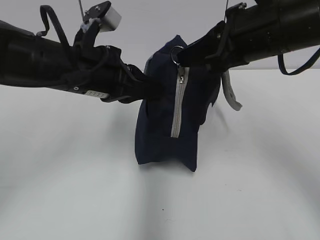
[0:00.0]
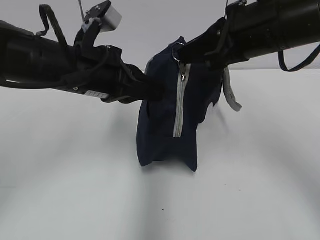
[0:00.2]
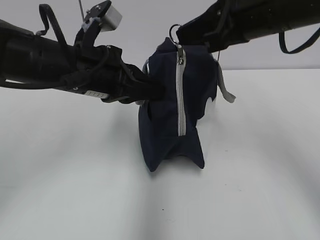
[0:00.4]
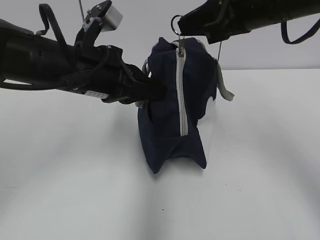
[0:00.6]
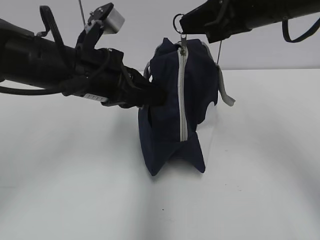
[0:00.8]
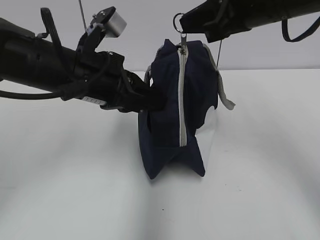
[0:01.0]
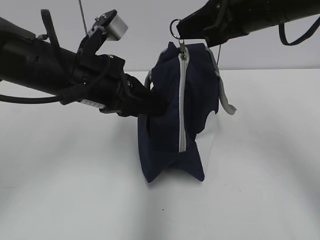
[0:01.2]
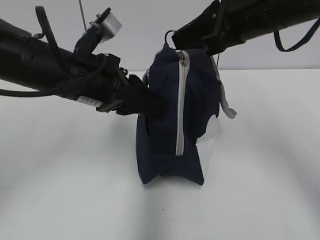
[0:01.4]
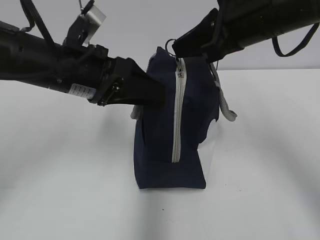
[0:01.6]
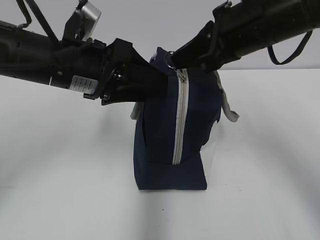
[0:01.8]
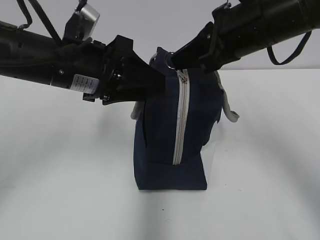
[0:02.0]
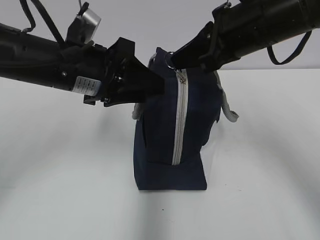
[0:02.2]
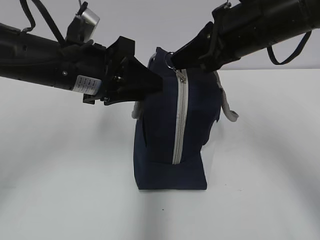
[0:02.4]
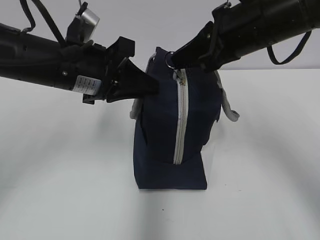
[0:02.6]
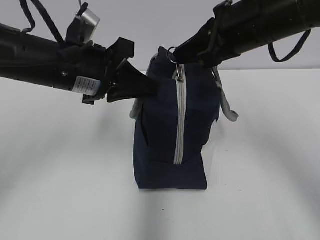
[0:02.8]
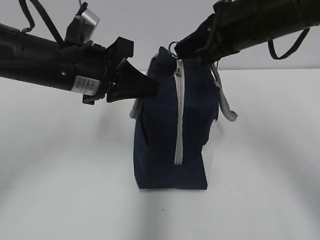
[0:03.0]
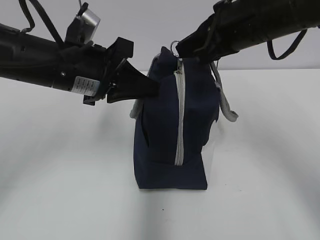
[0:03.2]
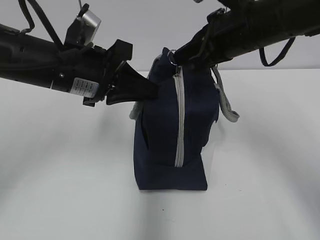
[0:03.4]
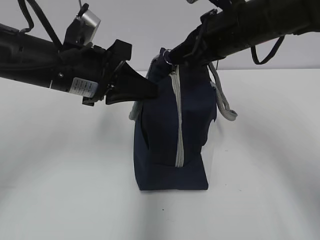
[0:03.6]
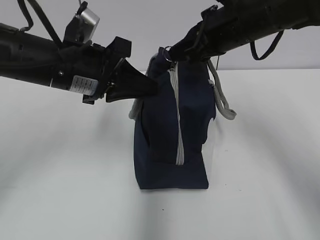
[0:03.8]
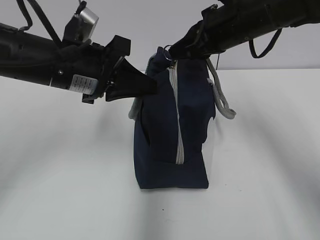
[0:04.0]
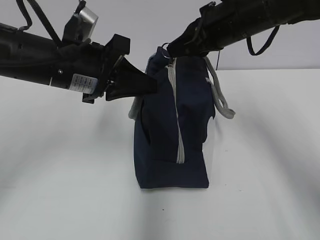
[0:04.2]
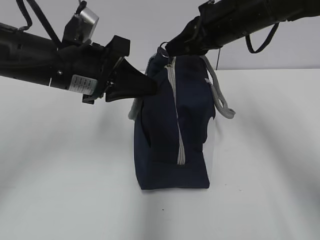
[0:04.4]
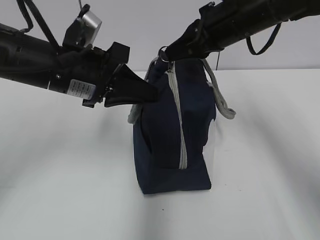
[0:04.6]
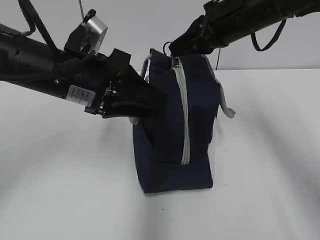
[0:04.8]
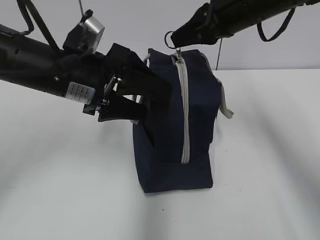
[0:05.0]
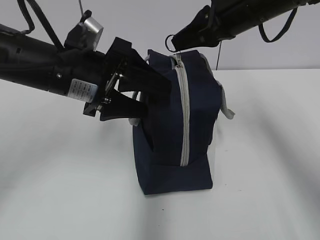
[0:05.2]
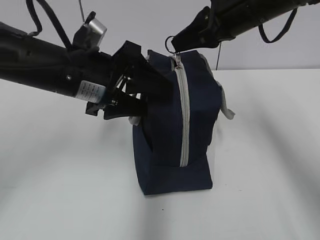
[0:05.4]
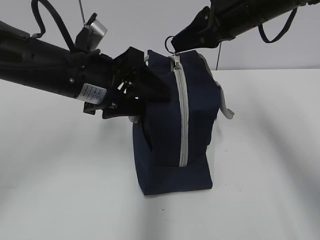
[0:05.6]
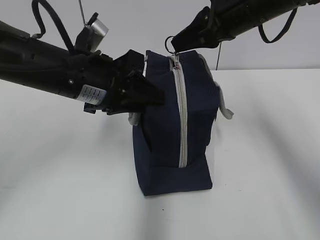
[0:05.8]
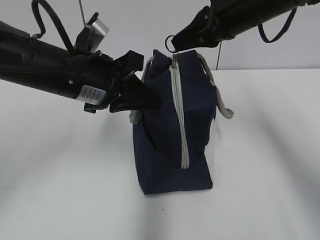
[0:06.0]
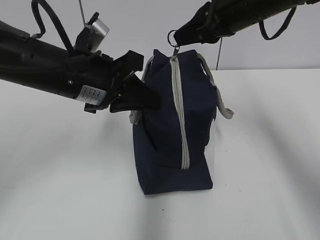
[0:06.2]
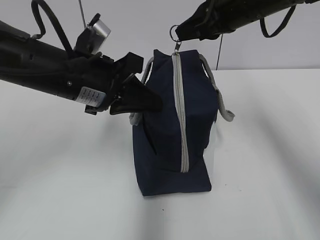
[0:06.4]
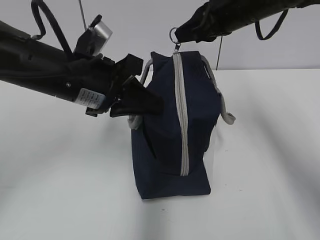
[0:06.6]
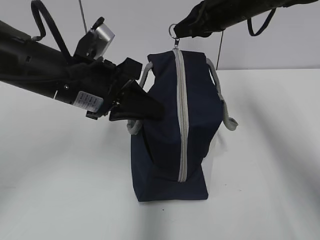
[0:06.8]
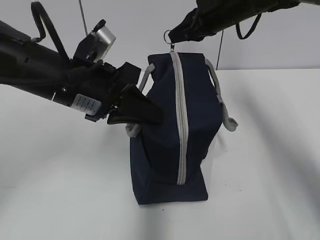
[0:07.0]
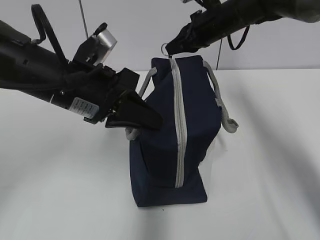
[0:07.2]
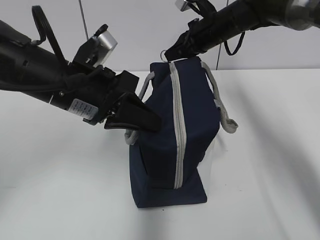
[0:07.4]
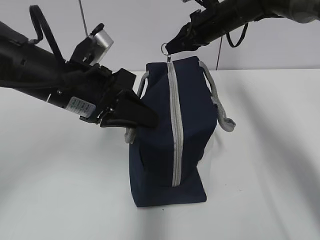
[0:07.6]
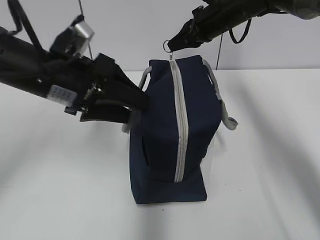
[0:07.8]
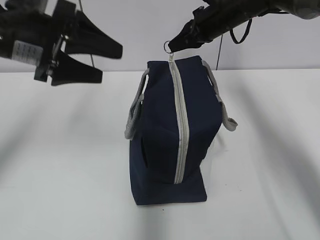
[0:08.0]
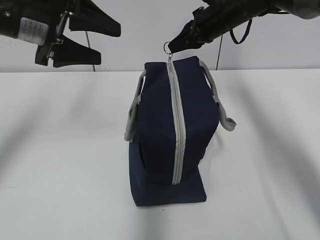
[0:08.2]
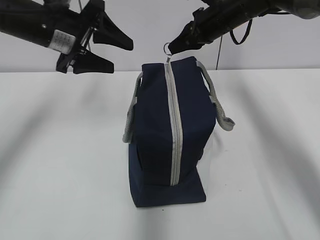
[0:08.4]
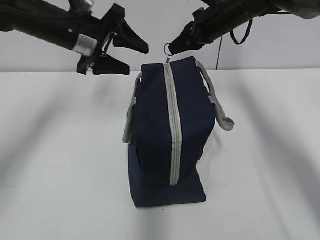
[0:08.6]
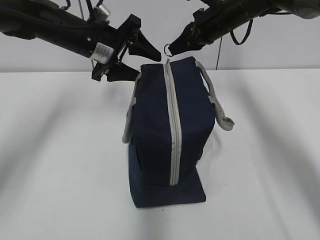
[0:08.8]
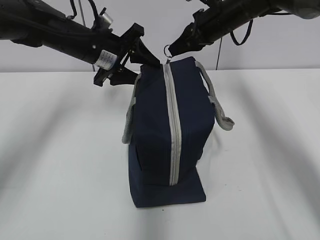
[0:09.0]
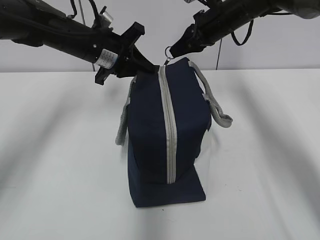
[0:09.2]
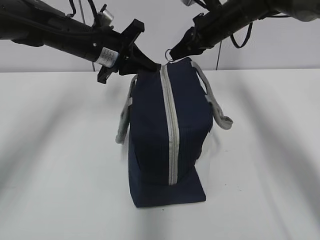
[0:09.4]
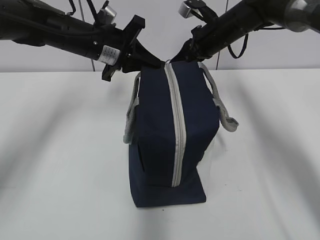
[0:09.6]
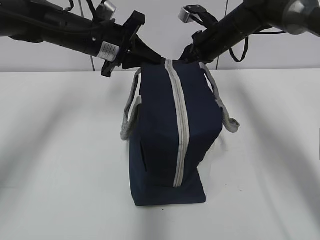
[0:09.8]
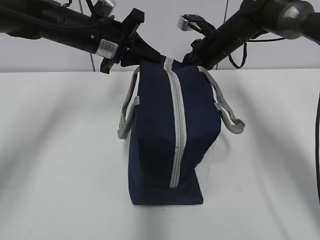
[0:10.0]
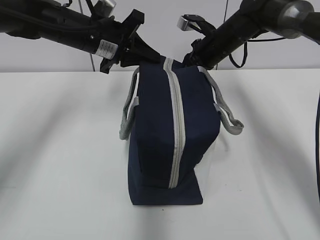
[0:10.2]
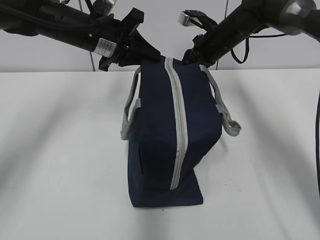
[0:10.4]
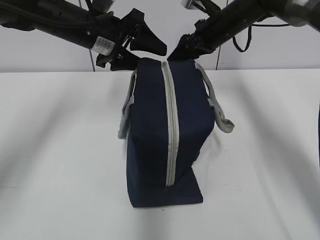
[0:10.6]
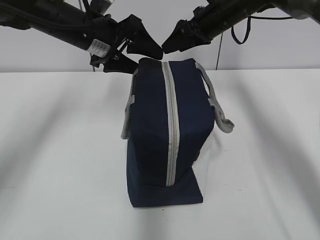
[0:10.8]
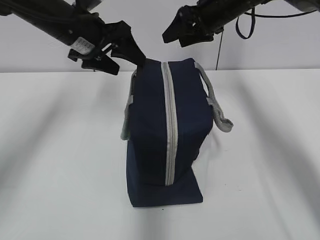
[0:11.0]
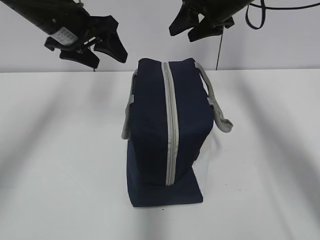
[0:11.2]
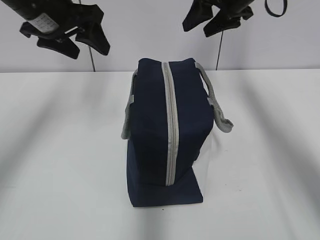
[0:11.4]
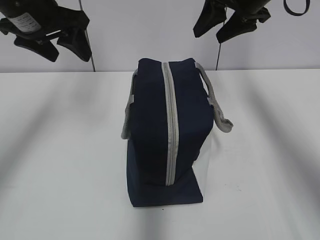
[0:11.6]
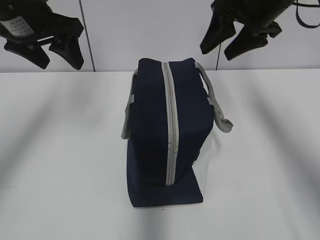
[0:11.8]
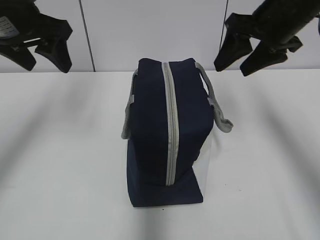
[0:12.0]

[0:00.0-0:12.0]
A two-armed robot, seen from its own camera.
Step, 0:00.0 to 0:10.4: Grab the lunch bag with your left hand.
0:00.0 to 0:01.6: The left gripper opens.
0:01.6 to 0:03.0: The left gripper closes its fingers.
0:03.0 to 0:04.4: The right gripper goes roughly 5 cm forward.
0:04.4 to 0:06.0: The left gripper opens, then closes again.
0:06.0 to 0:07.6: The right gripper moves forward and downward, roughly 15 cm.
0:07.6 to 0:09.0: The left gripper shifts about 15 cm forward, and opens.
0:09.0 to 0:10.4: The left gripper closes.
0:10.4 to 0:12.0: The left gripper is displaced to the left, upward and backward by some 15 cm, and opens up, while the right gripper shifts about 20 cm backward and upward, and opens up.

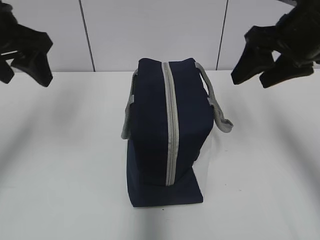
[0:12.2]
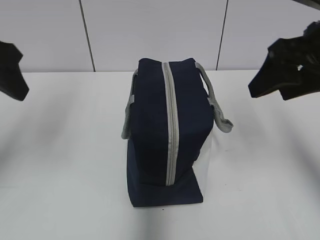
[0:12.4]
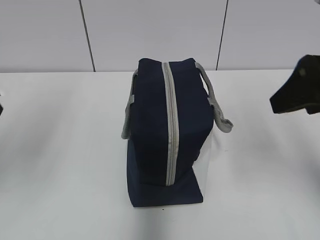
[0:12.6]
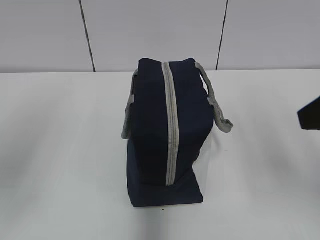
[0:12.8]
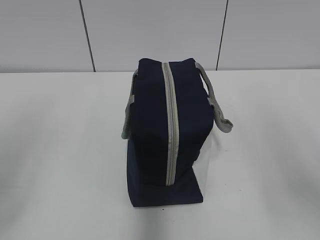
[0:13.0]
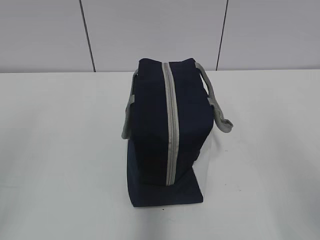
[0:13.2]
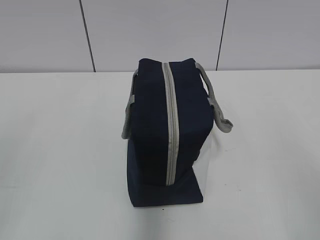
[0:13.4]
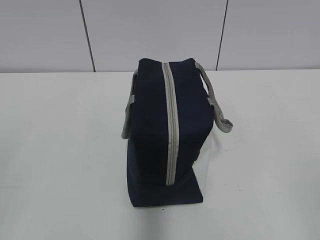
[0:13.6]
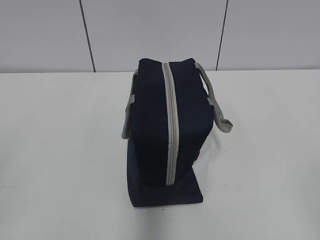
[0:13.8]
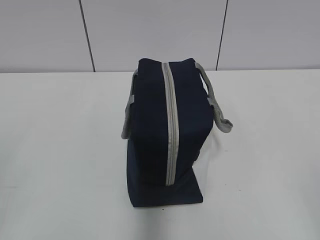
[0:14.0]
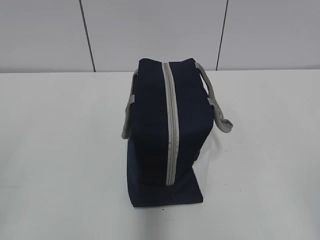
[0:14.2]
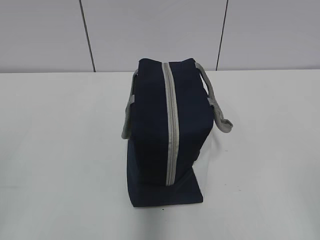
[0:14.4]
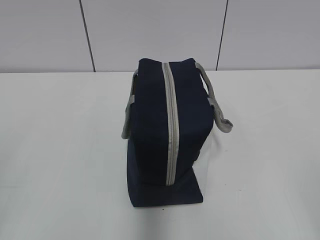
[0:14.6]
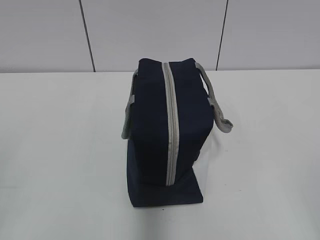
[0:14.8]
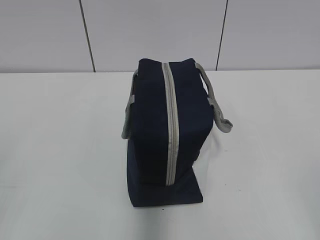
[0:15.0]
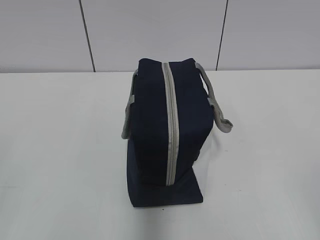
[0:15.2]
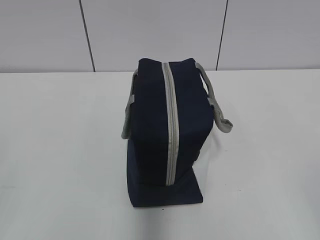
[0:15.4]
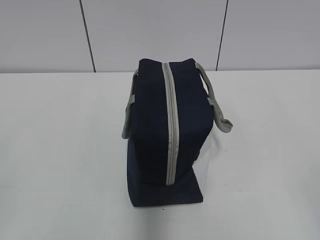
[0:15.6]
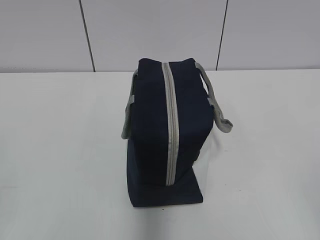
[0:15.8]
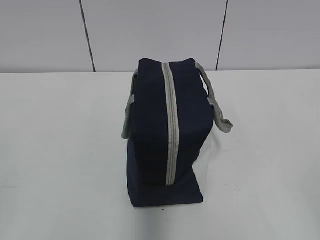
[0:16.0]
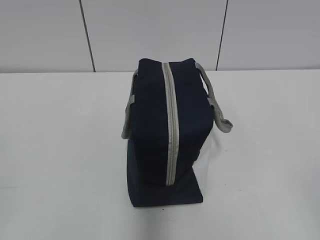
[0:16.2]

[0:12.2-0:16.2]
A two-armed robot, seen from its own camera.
0:12.2 to 0:13.6: Both grippers move backward, roughly 30 cm.

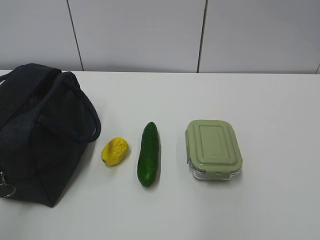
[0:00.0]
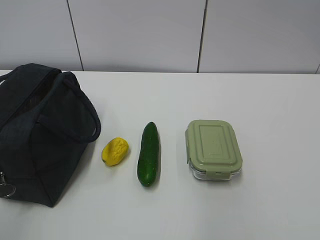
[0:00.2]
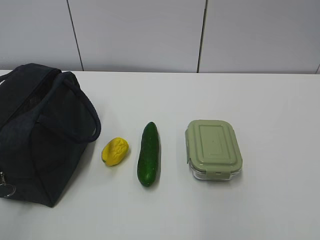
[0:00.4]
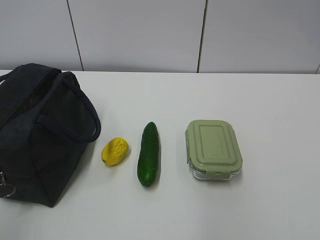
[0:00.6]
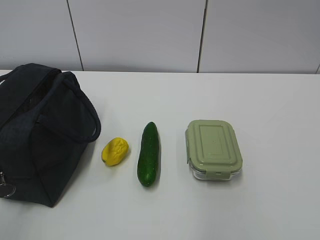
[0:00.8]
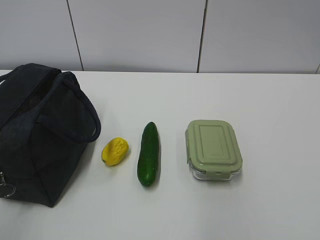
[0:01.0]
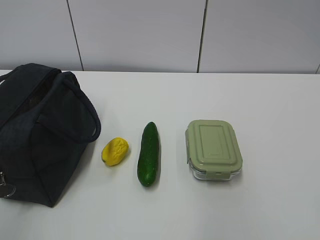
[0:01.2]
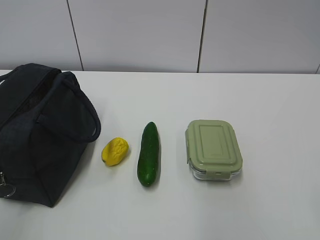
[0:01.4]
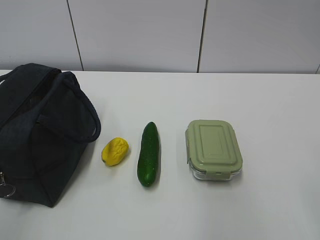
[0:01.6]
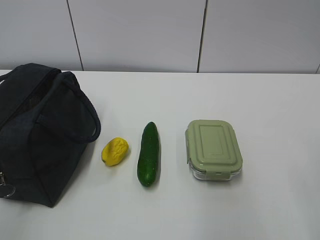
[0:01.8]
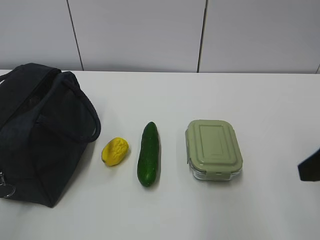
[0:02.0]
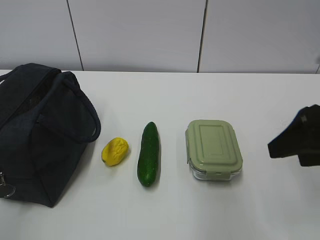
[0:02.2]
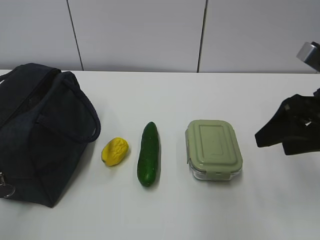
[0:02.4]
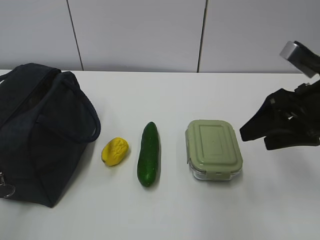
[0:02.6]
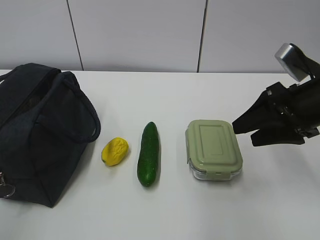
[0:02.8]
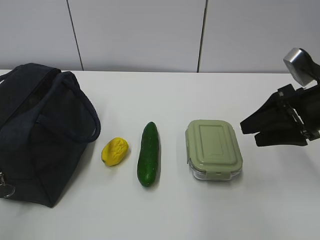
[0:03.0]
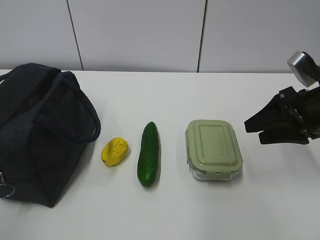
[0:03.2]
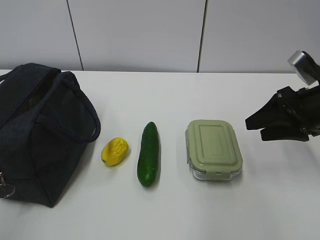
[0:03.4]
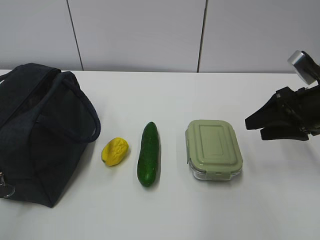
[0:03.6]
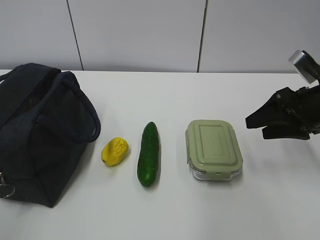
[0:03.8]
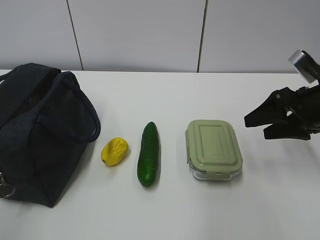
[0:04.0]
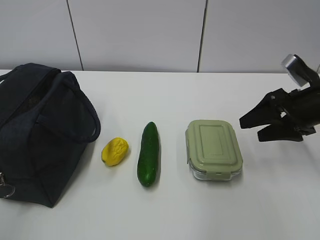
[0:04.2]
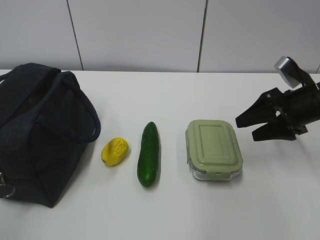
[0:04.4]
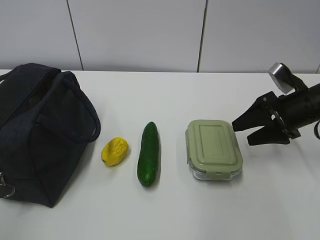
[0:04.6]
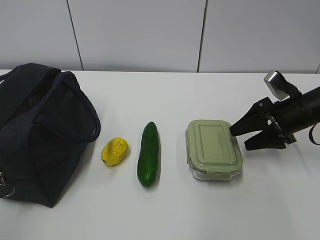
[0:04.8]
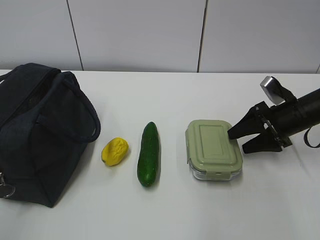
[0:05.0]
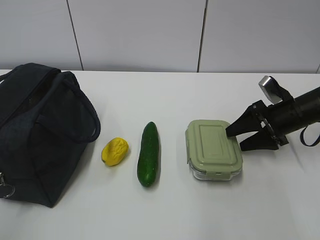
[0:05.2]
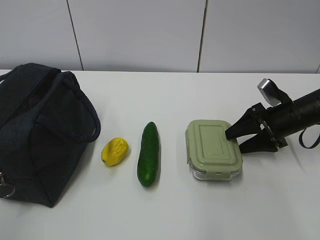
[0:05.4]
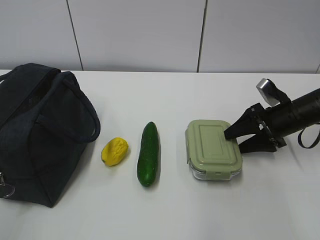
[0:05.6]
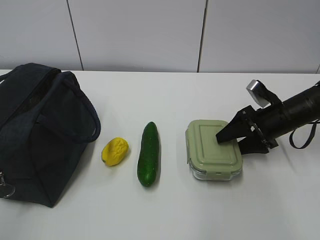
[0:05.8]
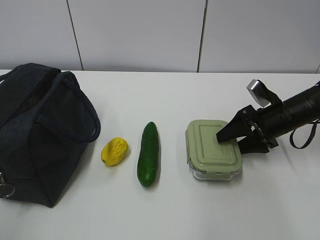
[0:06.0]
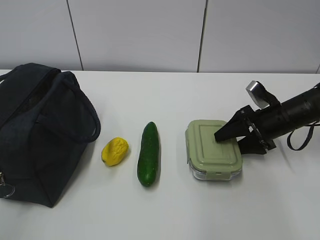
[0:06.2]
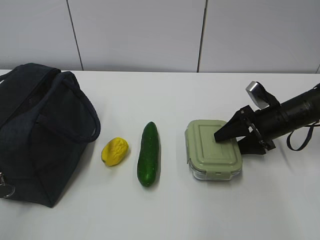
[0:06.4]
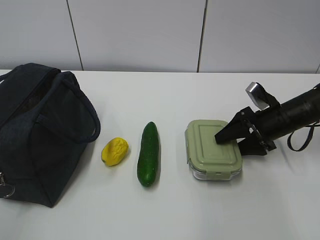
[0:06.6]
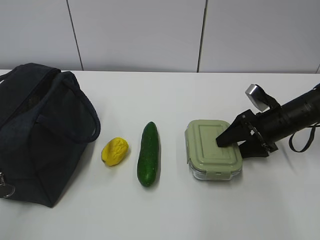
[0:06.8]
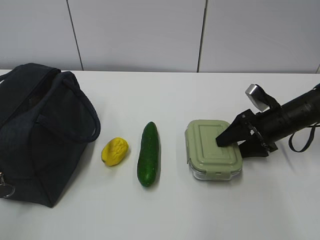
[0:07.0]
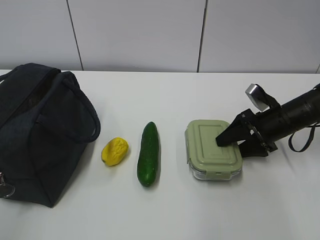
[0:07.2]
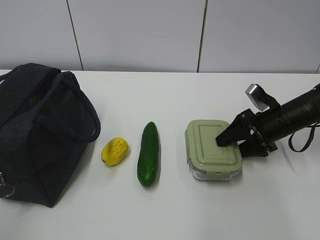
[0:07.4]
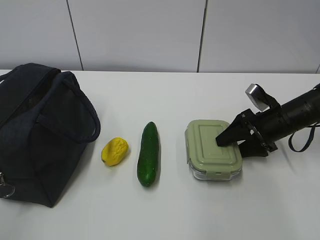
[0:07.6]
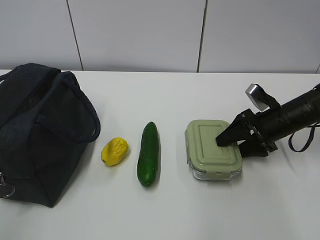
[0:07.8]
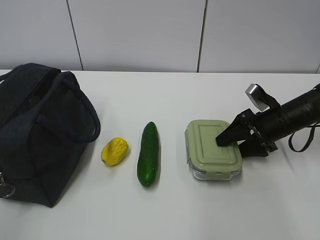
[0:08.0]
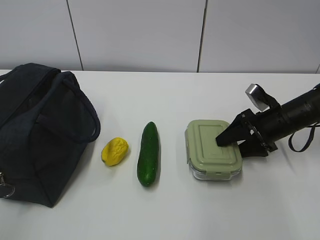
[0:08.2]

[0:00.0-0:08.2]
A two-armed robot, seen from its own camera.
0:01.6 to 0:03.2: The right gripper is displaced forward by approximately 20 cm.
0:03.2 to 0:05.0: The right gripper moves downward and forward, roughly 10 cm.
0:05.0 to 0:06.6: The grippers stay close to where they were, moving slightly.
0:06.6 to 0:08.2: Both grippers stay about where they are.
